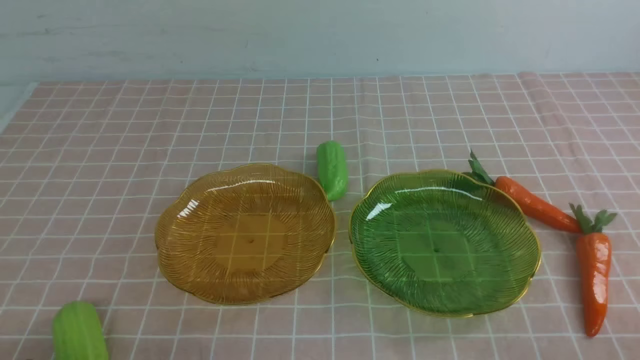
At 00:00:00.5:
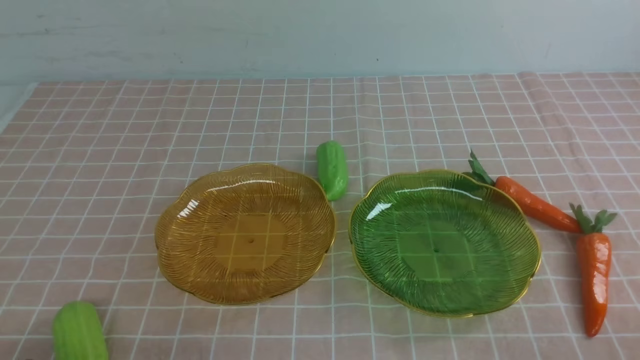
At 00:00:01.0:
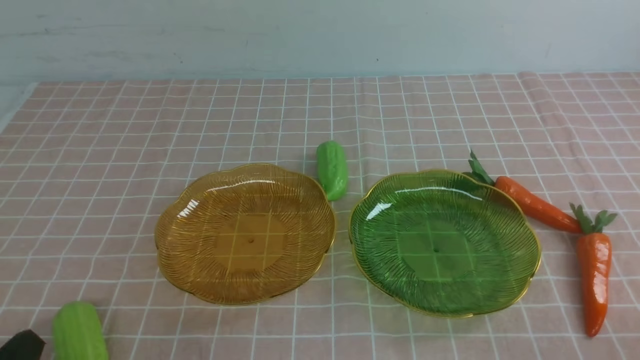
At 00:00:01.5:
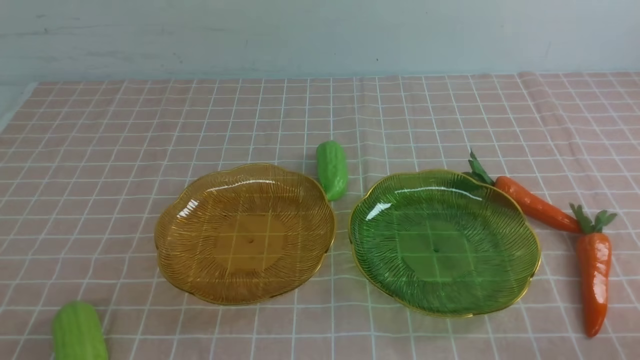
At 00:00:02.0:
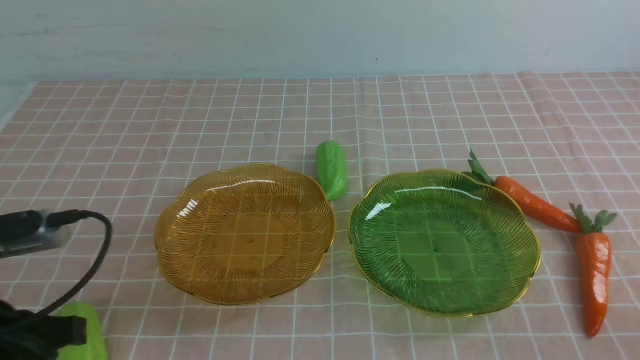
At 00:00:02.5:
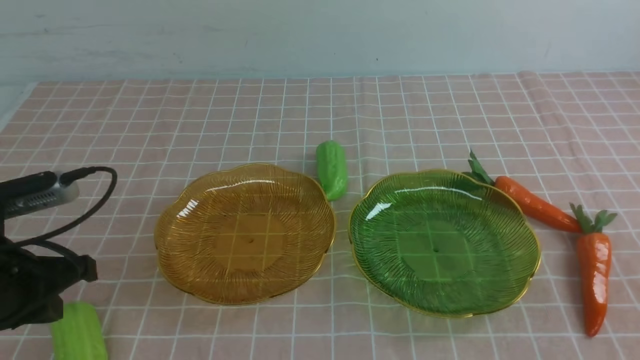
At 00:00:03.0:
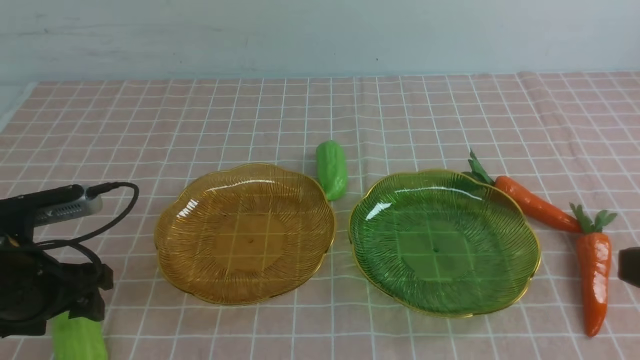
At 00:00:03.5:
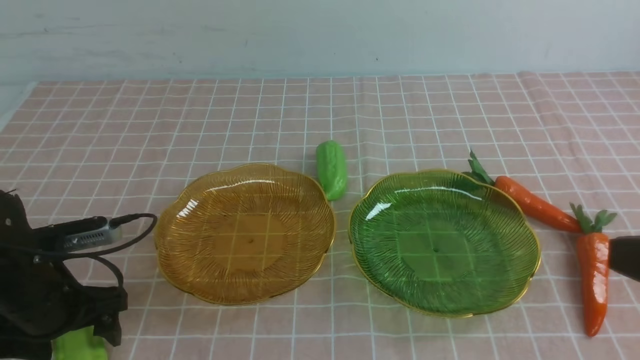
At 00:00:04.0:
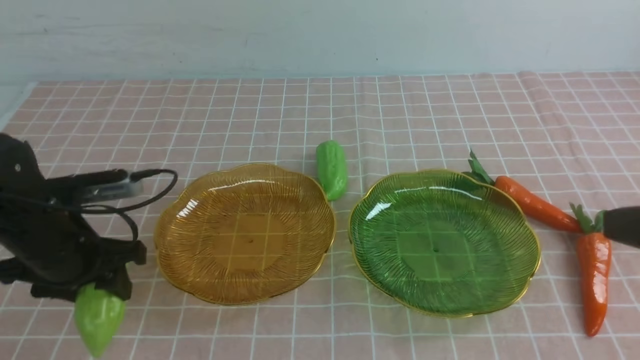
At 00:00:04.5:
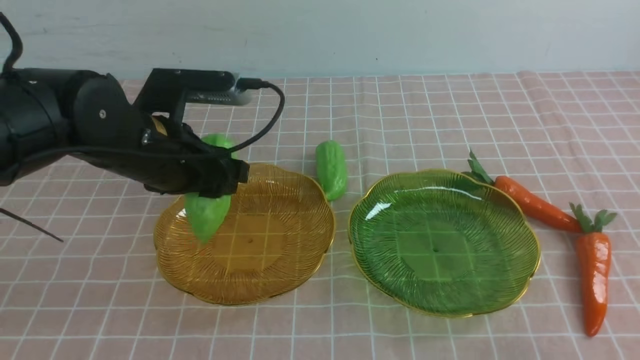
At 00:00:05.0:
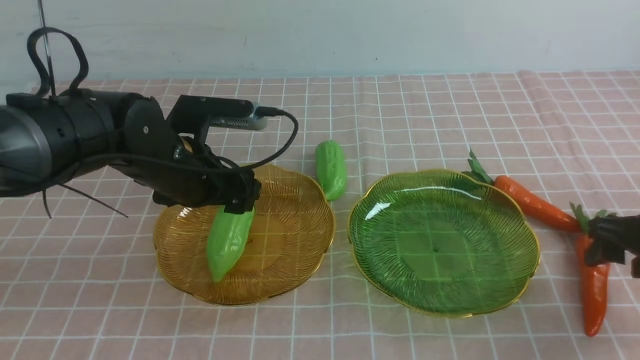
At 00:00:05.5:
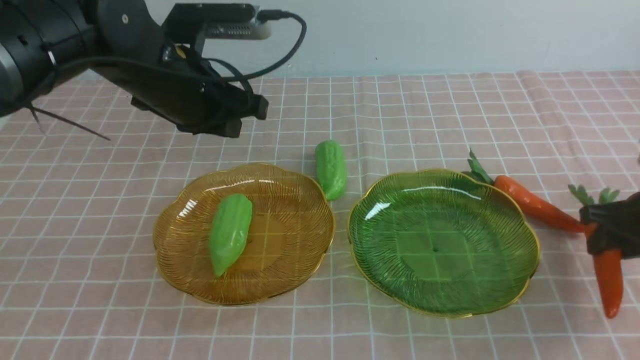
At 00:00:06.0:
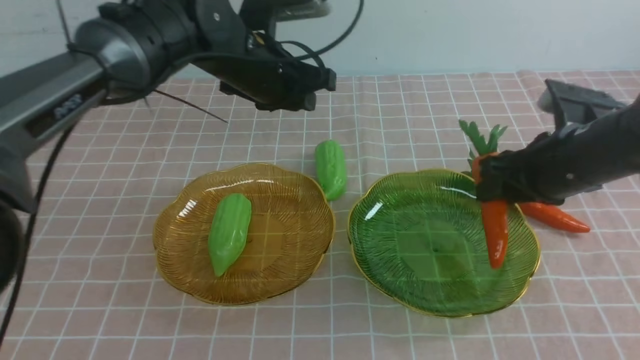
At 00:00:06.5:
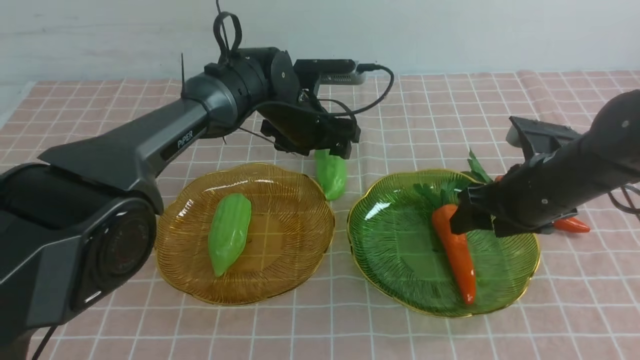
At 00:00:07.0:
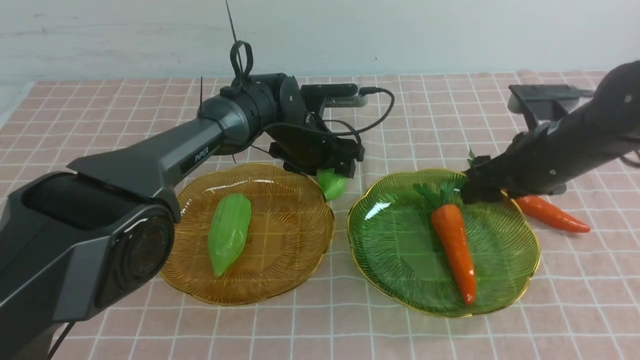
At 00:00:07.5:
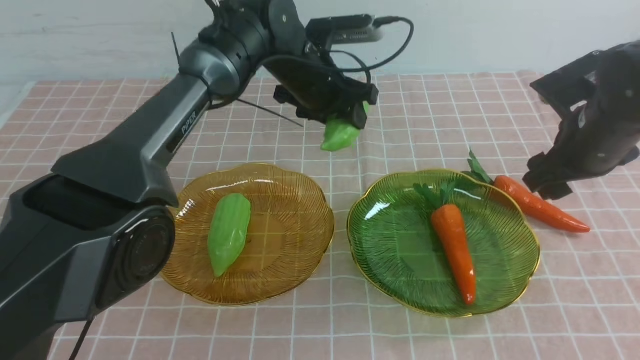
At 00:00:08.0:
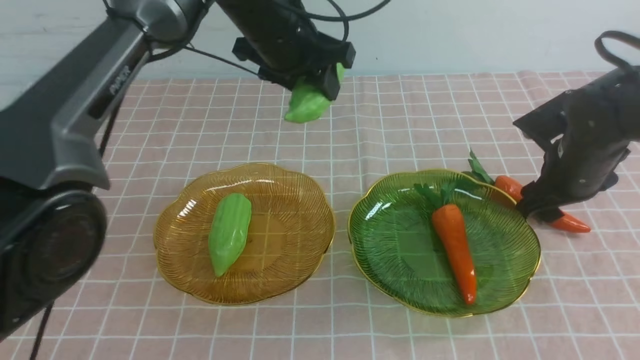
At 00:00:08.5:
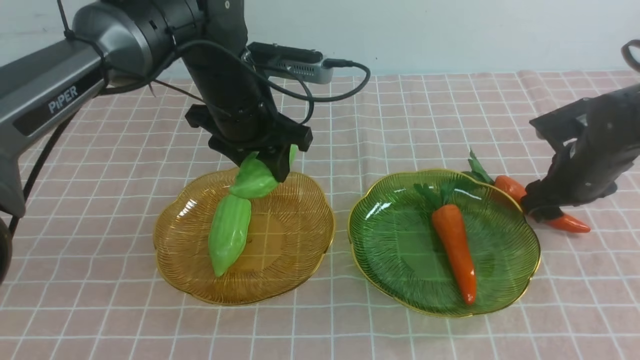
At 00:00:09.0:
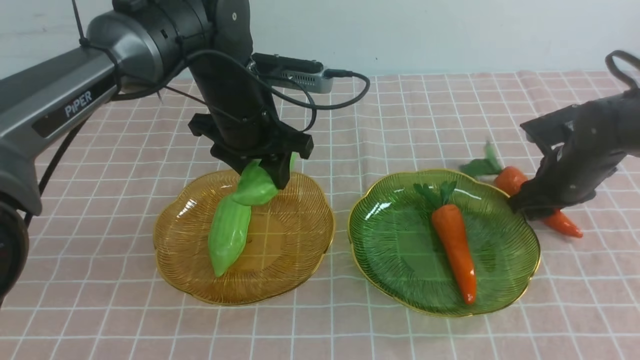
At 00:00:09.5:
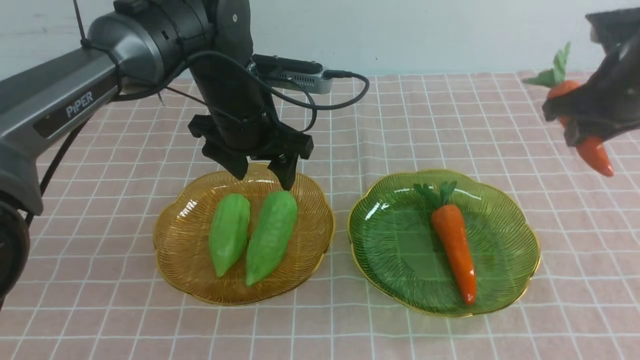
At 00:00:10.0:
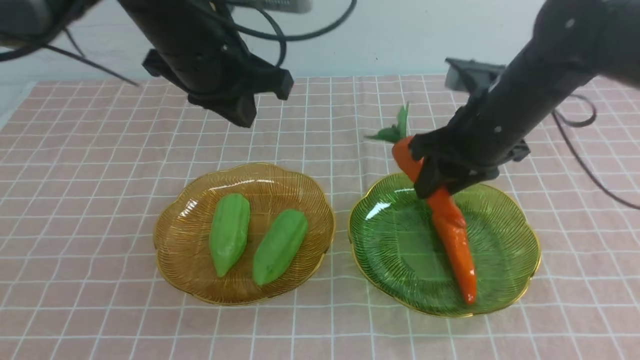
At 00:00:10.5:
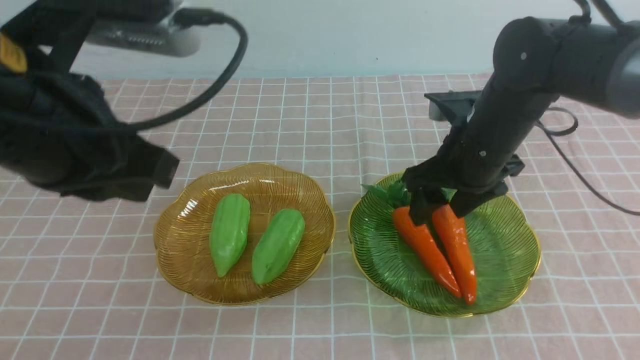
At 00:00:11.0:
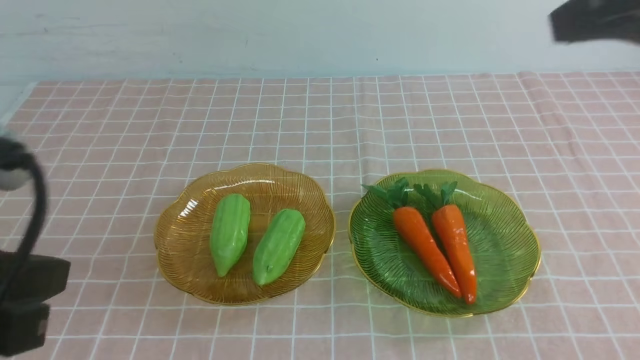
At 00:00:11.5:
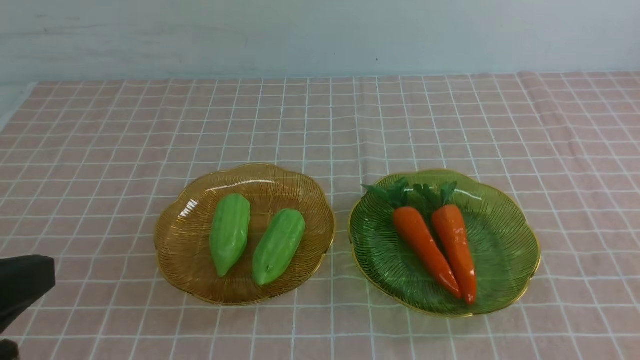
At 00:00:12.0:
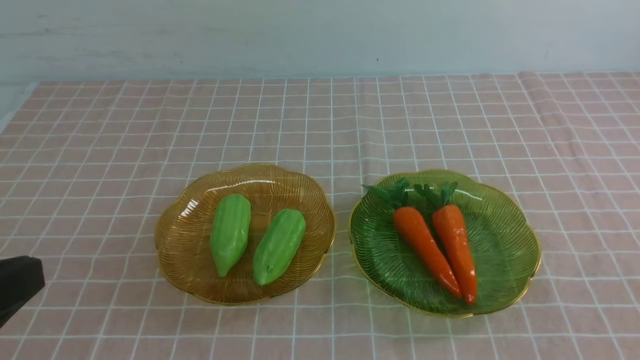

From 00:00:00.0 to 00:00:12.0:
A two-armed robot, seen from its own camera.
Step, from 00:00:00.0 to 00:00:05.0: use the left arm to grab a chayote and put it into the left plate.
Step, from 00:00:05.5 to 00:00:06.0: use the right arm to grab a carrot and put it into the right plate.
Step, from 00:00:06.5 to 00:00:09.0: use the left arm to grab a chayote and put it into the left plate.
Step, from 00:00:09.5 to 00:00:10.0: use the right arm to grab a carrot and put it into the right plate.
From 00:00:00.0 to 00:00:02.0: The left gripper travels forward and upward by some 15 cm.
From 00:00:02.0 to 00:00:04.0: The right gripper travels forward by some 20 cm, while the left gripper heads forward and to the right, covering roughly 20 cm, and opens.
From 00:00:04.0 to 00:00:06.0: The right gripper moves to the left and forward, approximately 15 cm, and opens up, while the left gripper moves forward, to the right and downward, about 20 cm, and closes, then opens again.
From 00:00:06.0 to 00:00:08.0: The left gripper is displaced upward, backward and to the left by some 15 cm, and closes; the right gripper moves to the right, downward and forward, about 10 cm.
From 00:00:08.0 to 00:00:10.0: The right gripper goes up and down, roughly 20 cm each way, reversing 2 times; the left gripper moves backward, upward and to the left, about 25 cm, and closes its fingers.
From 00:00:10.0 to 00:00:12.0: The right gripper heads backward and to the right, covering some 35 cm, and closes. Meanwhile the left gripper shifts roughly 15 cm backward, downward and to the left.

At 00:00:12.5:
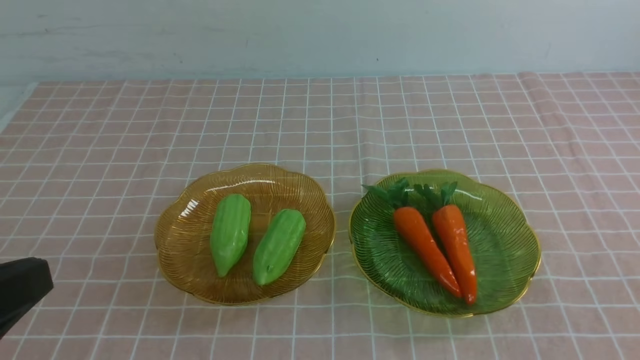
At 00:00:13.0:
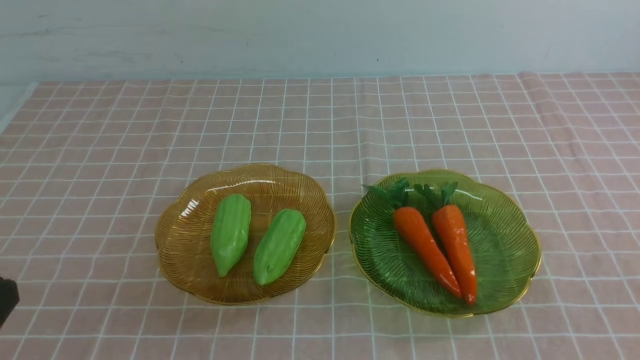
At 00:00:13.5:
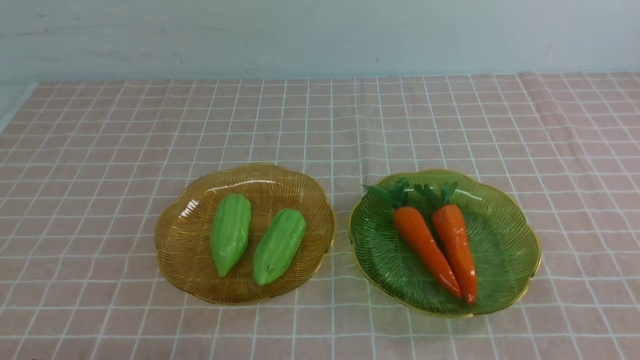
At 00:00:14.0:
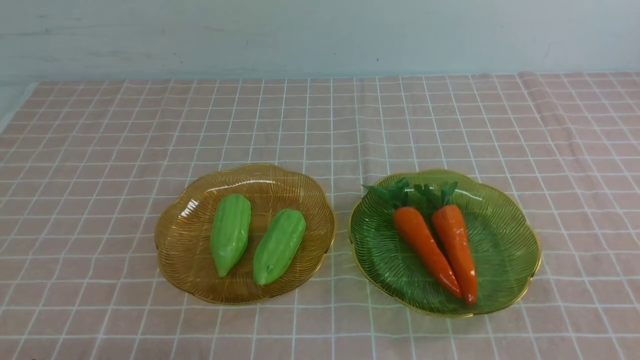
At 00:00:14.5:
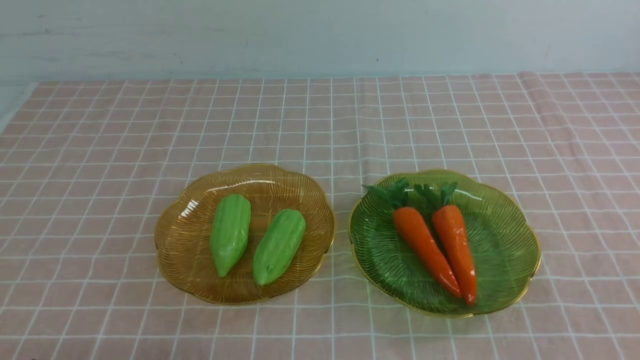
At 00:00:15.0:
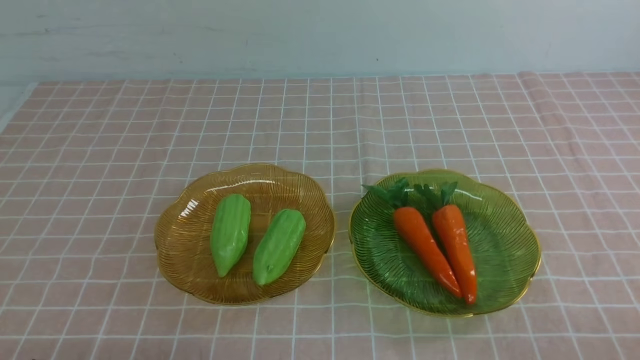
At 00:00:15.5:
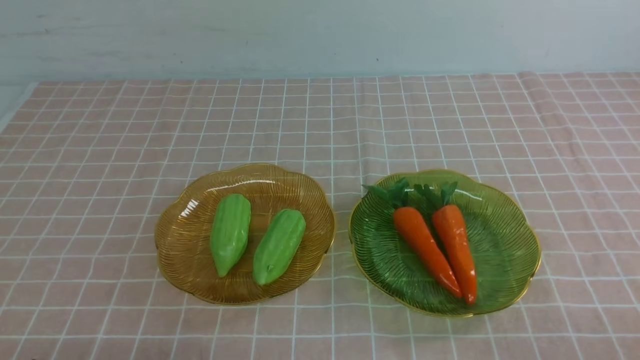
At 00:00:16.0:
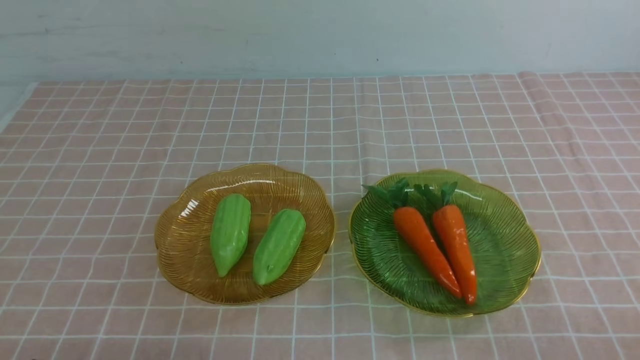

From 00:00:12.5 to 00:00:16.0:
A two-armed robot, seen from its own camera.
From 00:00:14.5 to 00:00:16.0: Both grippers stay about where they are.
